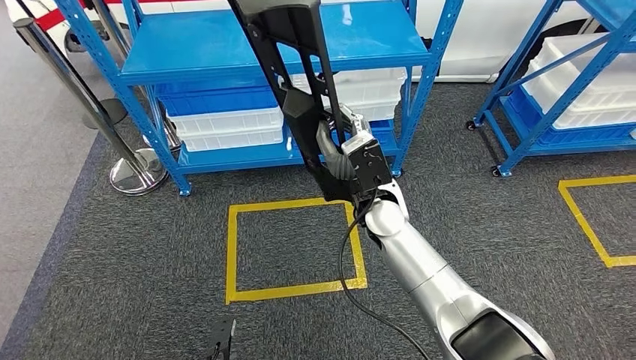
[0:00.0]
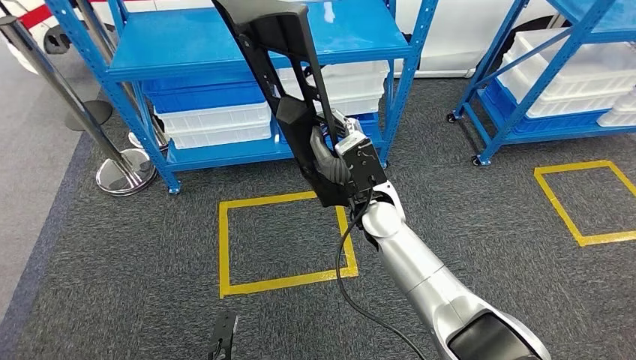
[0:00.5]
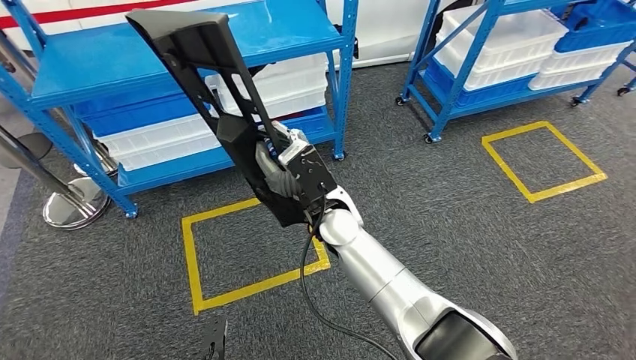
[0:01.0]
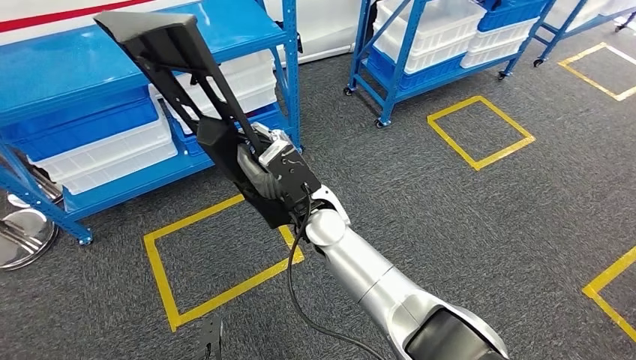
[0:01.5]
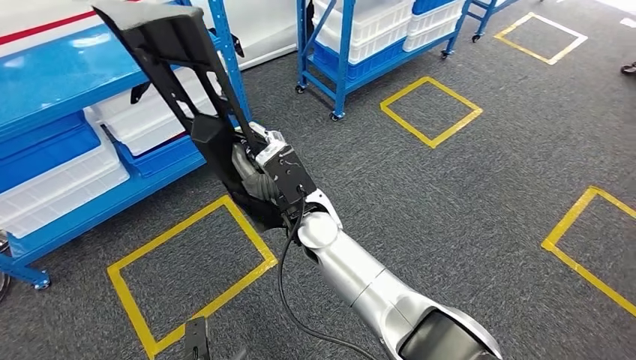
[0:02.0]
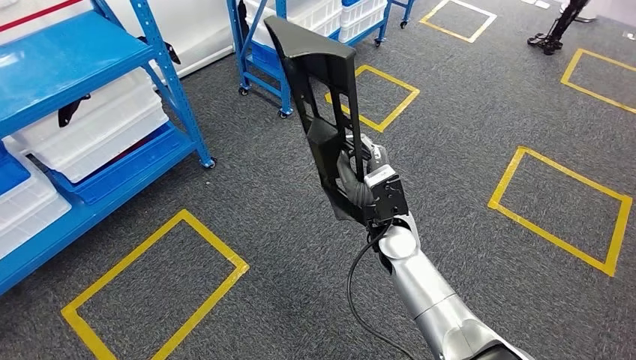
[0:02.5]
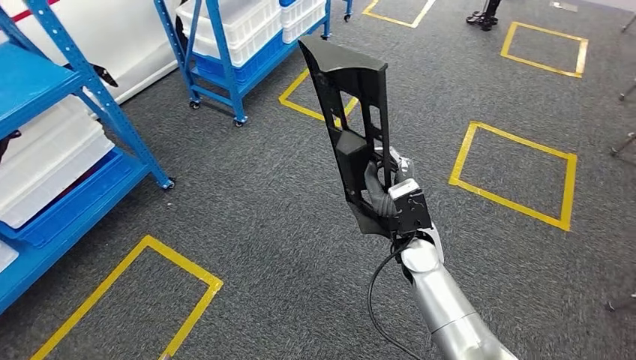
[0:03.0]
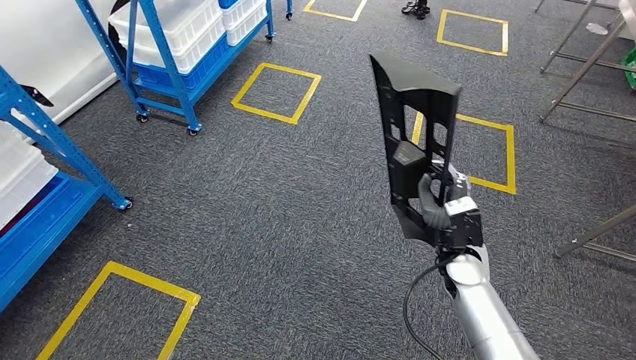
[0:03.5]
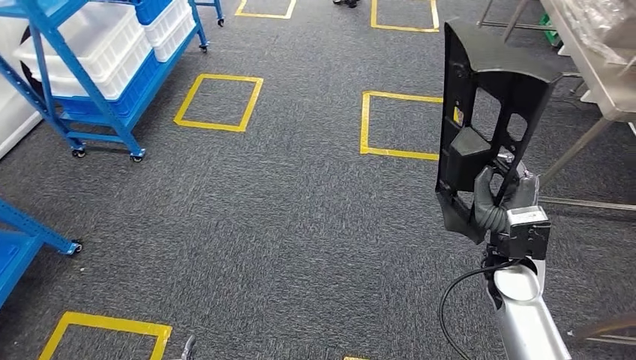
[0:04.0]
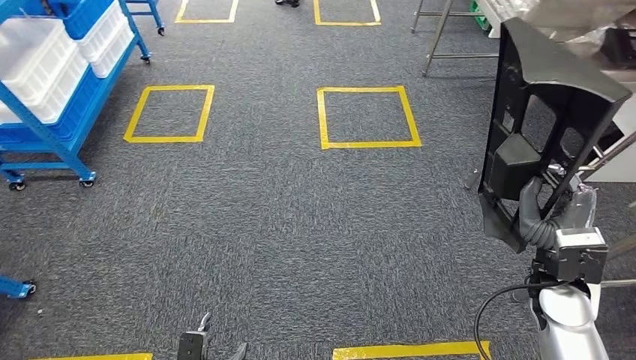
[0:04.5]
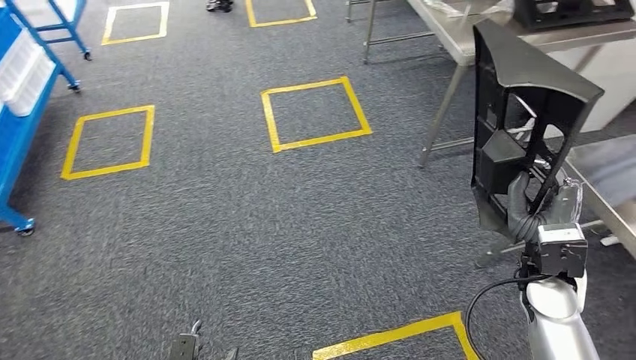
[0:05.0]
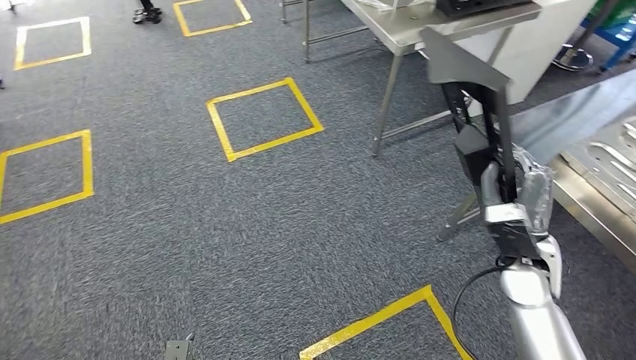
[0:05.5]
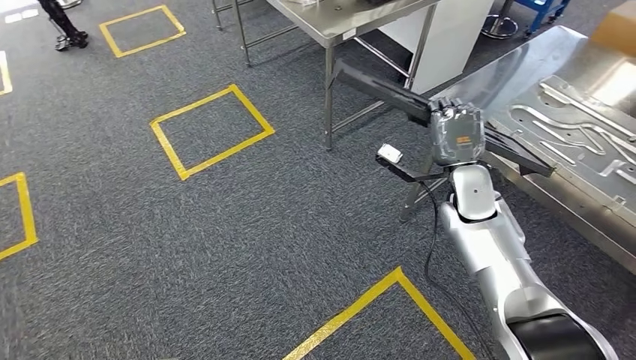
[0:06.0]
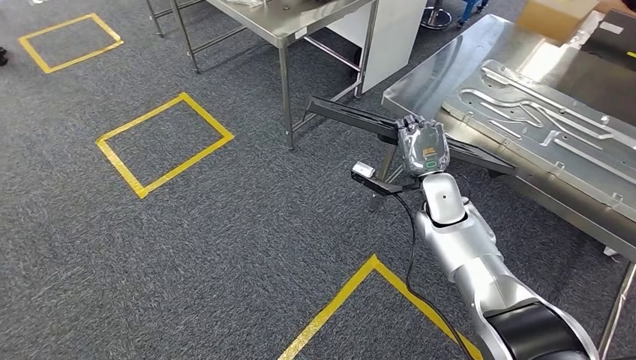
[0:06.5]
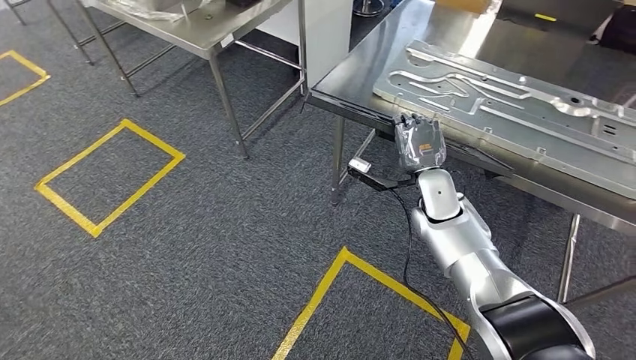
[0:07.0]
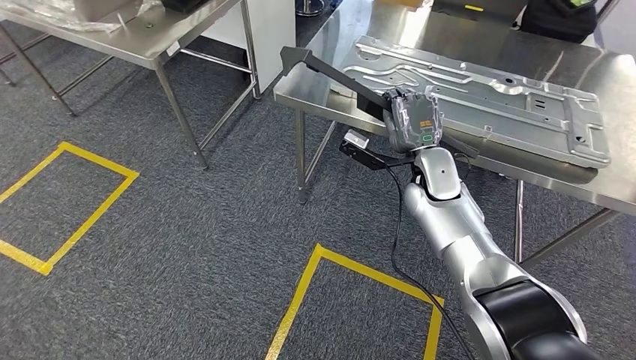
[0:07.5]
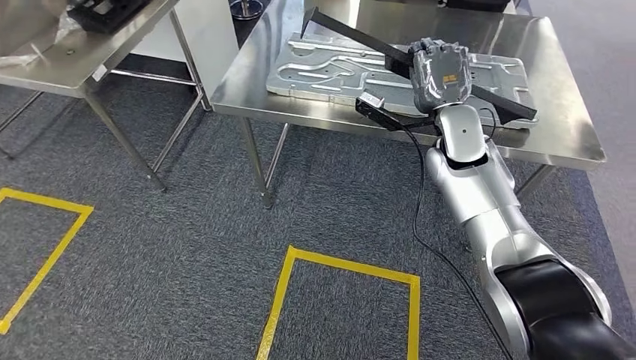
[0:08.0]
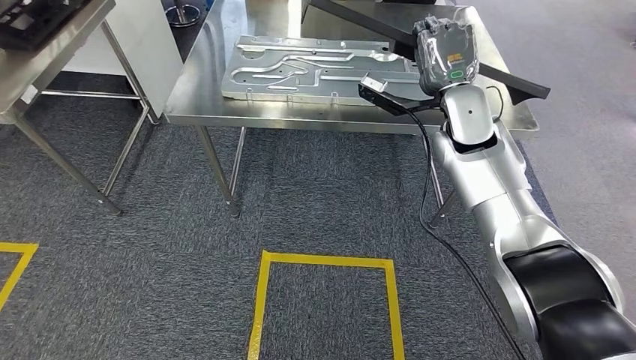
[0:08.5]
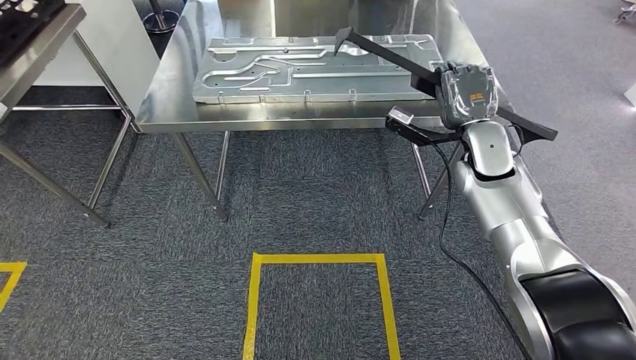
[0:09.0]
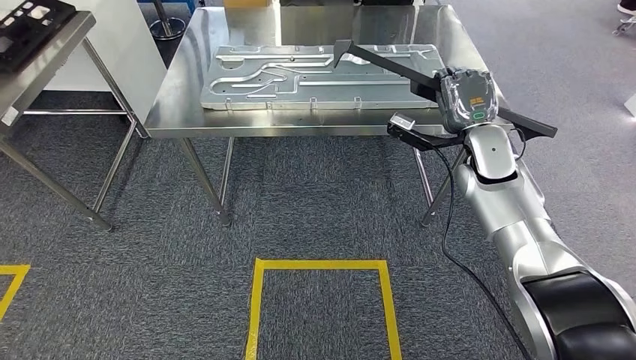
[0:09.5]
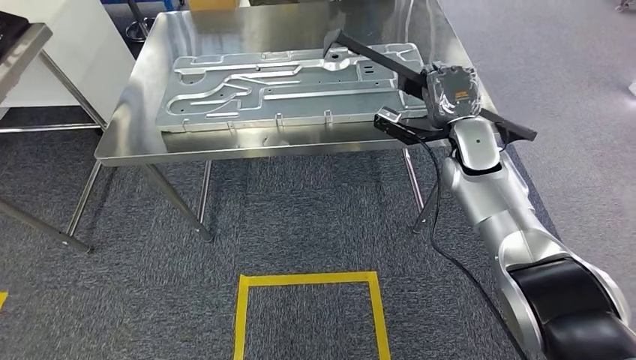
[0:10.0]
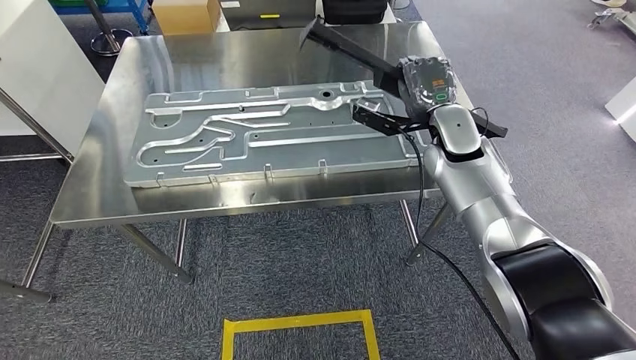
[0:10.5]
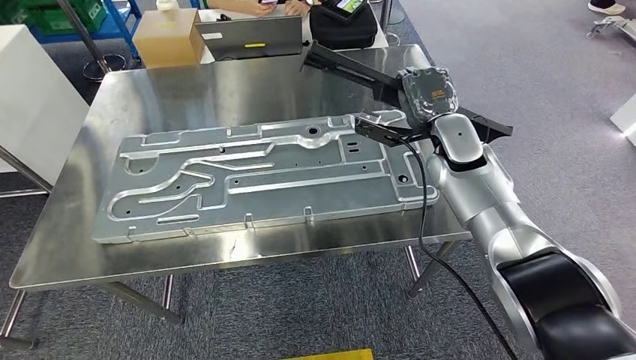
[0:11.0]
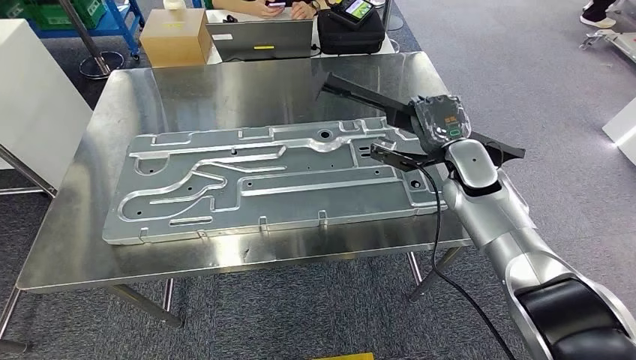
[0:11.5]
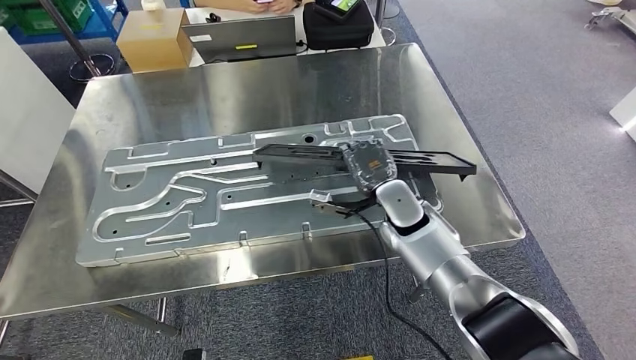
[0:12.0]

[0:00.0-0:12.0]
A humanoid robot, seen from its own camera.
Step, 0:00.0 to 0:07.0: Move the large material to the workbench.

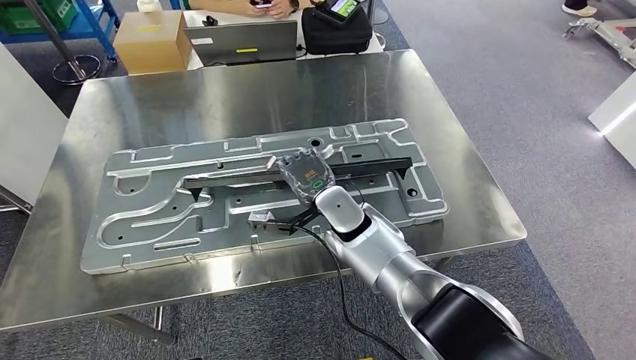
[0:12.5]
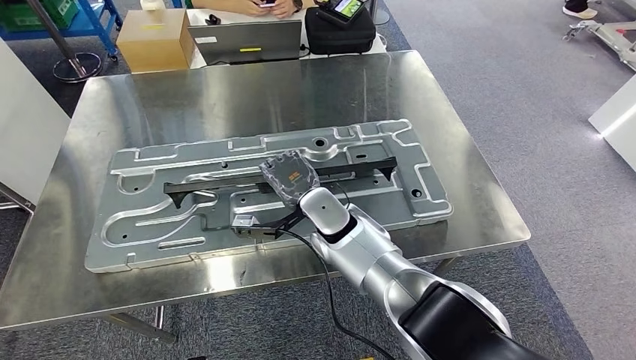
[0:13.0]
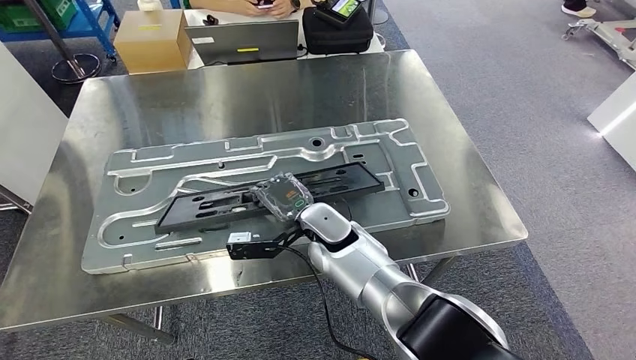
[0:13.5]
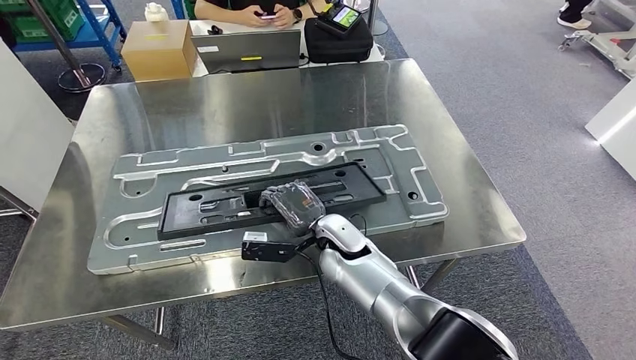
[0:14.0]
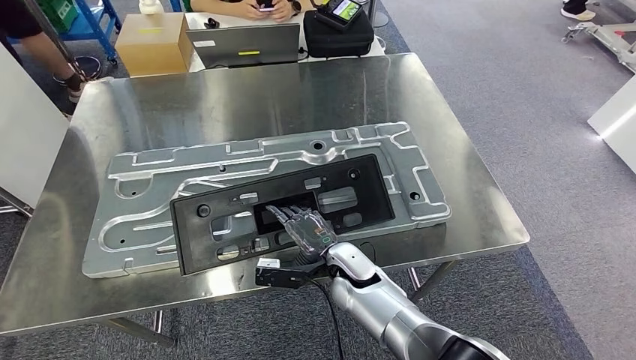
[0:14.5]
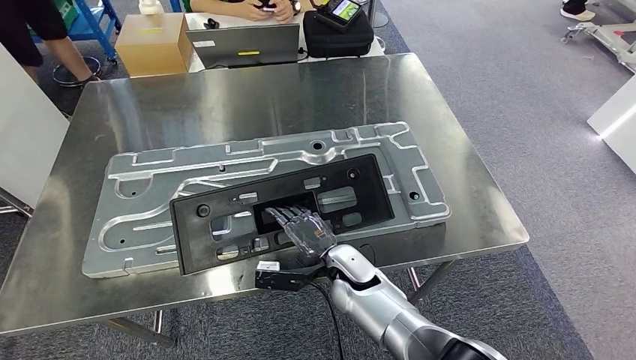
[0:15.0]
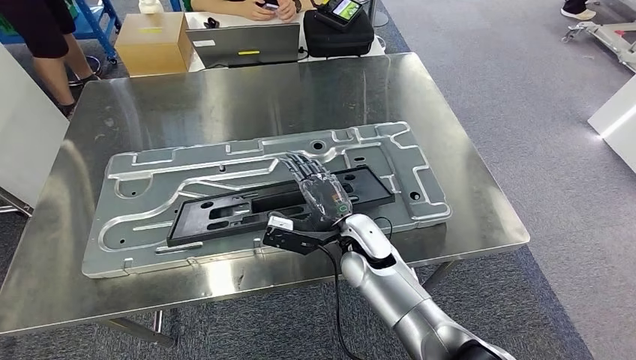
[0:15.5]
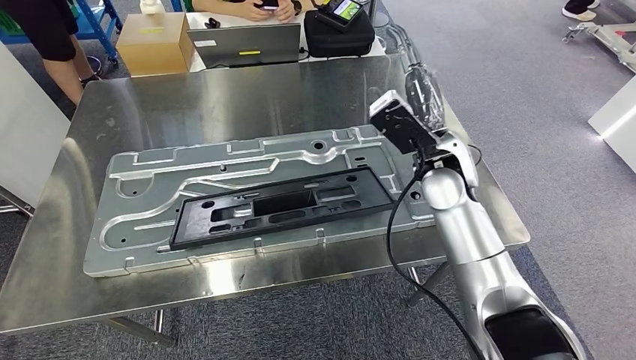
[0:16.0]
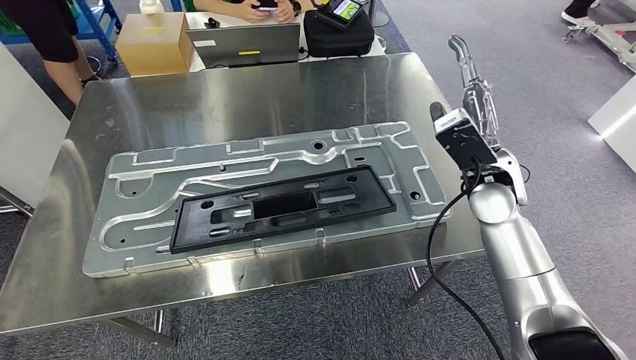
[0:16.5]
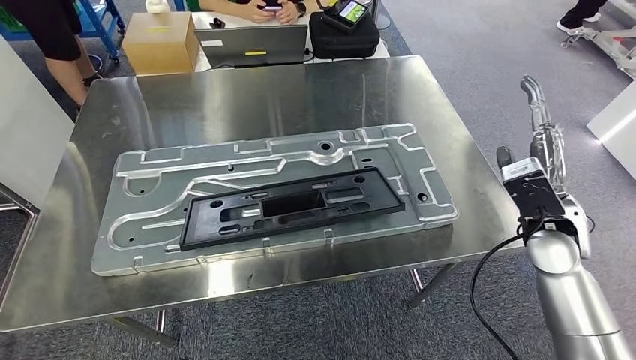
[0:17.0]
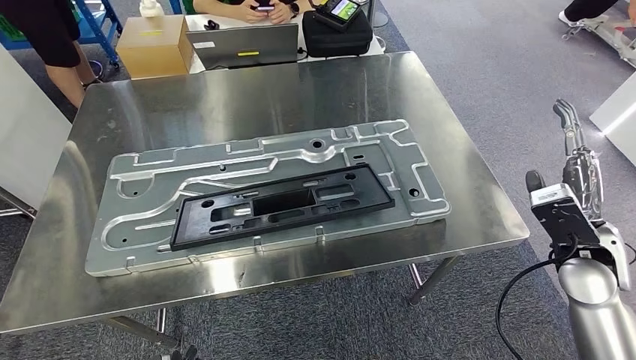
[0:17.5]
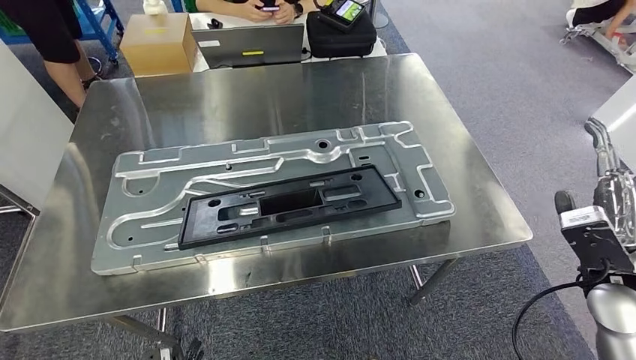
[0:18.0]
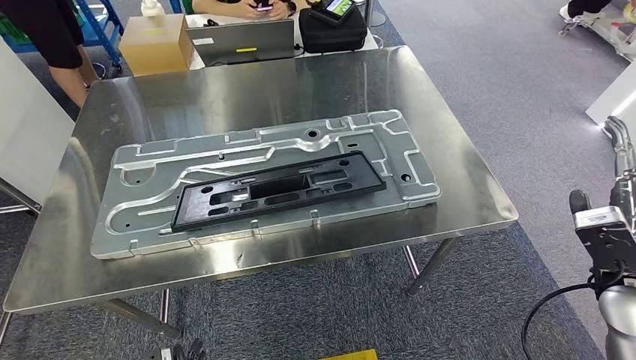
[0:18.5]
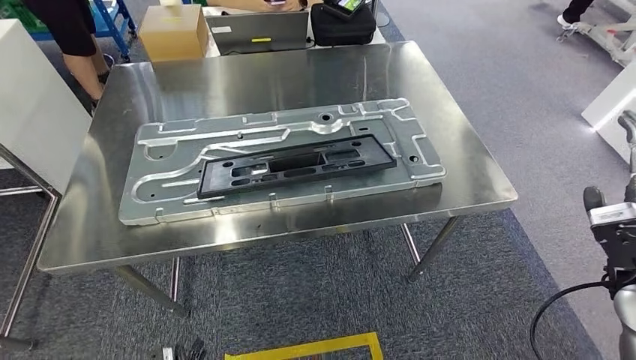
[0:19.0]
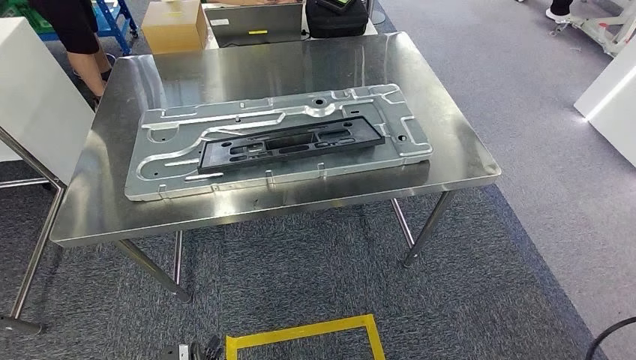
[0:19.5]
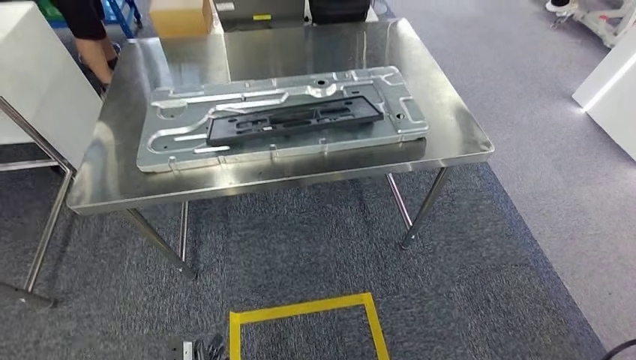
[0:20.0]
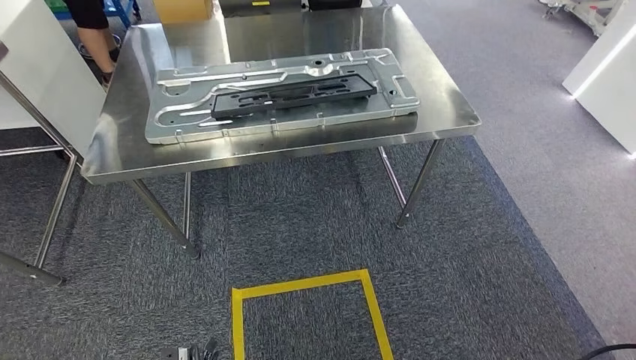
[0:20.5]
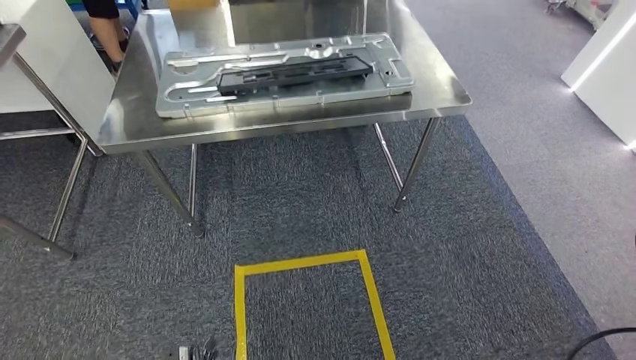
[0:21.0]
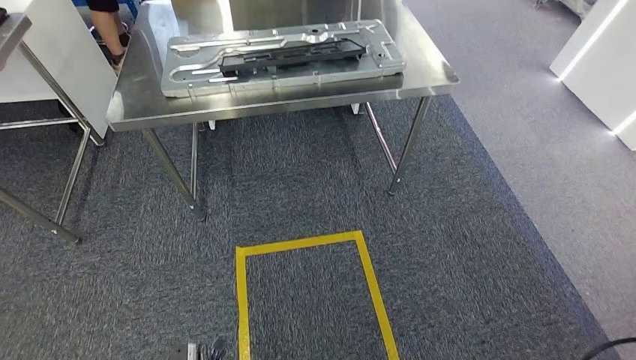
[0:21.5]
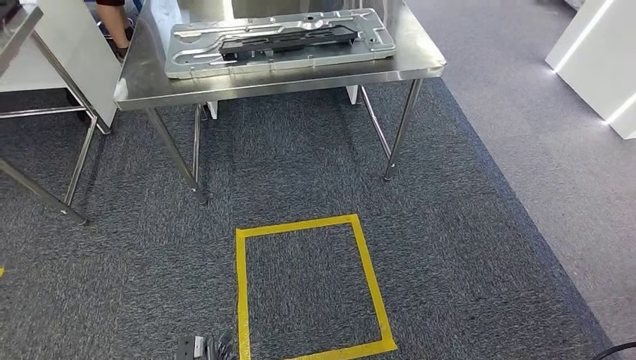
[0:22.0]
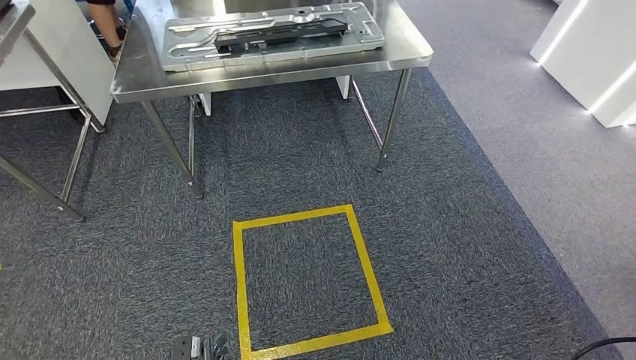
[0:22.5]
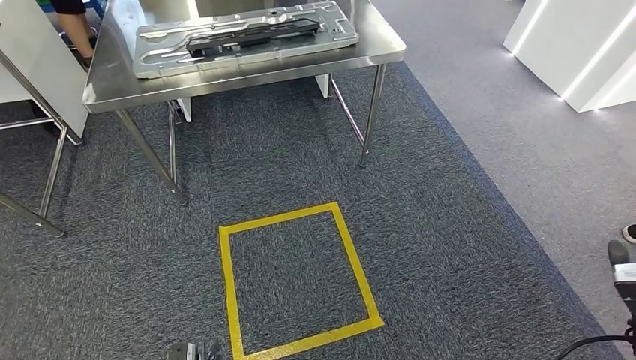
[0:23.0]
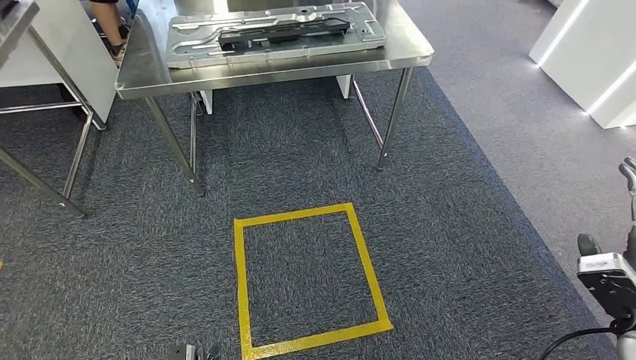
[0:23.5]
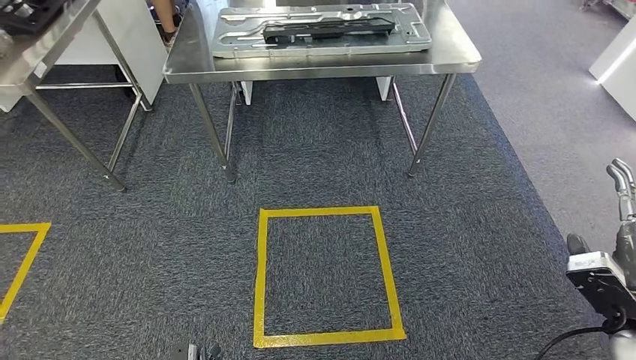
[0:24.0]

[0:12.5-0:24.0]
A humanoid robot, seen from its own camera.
Step, 0:12.5 to 0:18.0: Insert the large material into the corresponding slot on the workbench.
